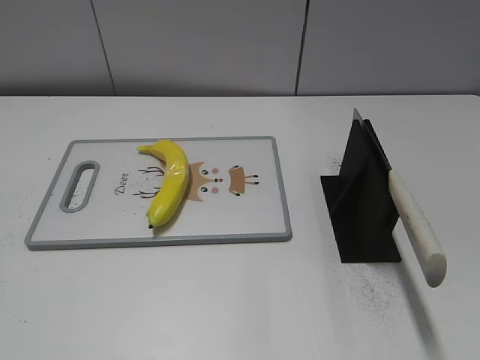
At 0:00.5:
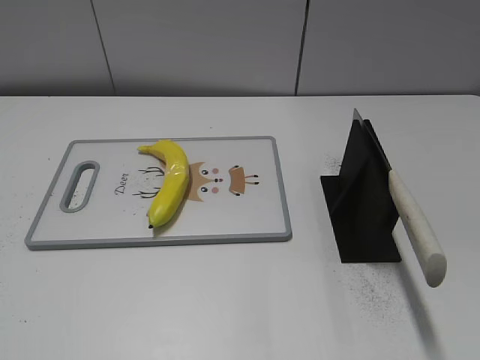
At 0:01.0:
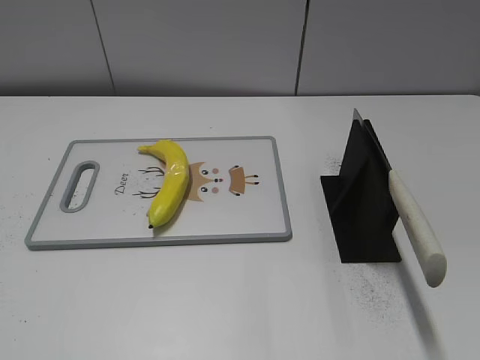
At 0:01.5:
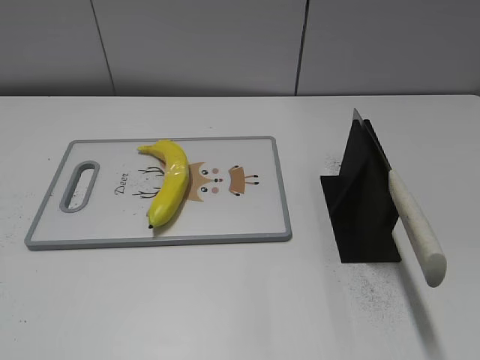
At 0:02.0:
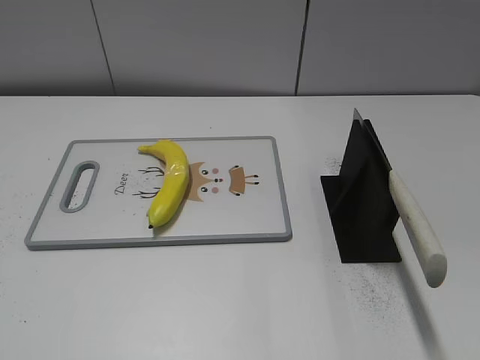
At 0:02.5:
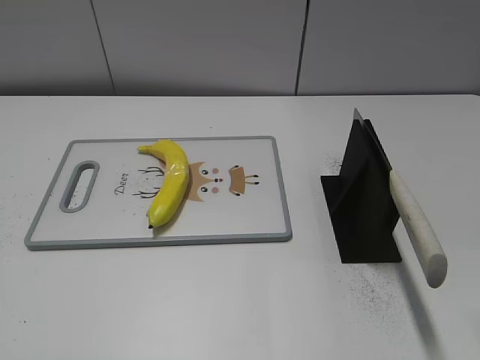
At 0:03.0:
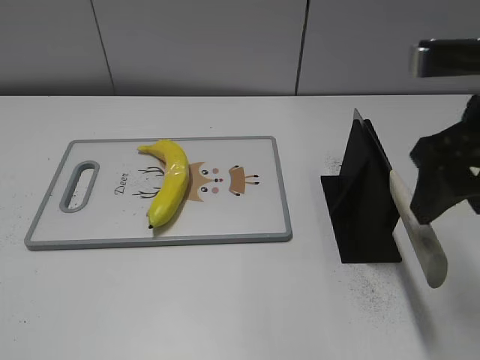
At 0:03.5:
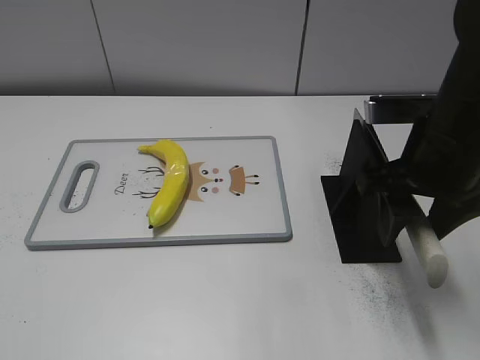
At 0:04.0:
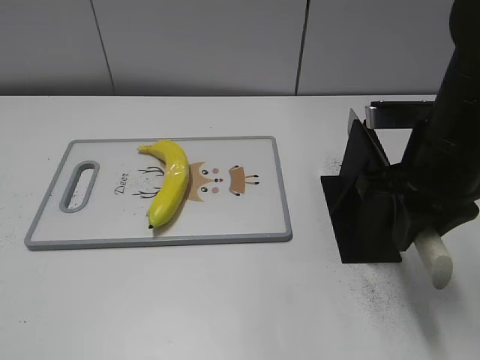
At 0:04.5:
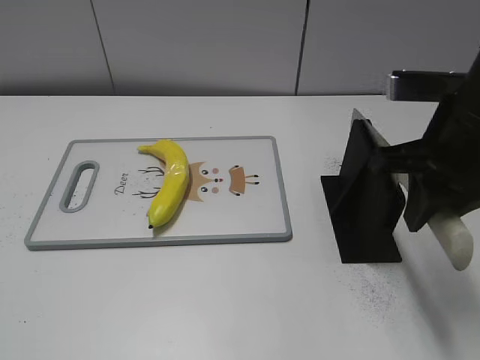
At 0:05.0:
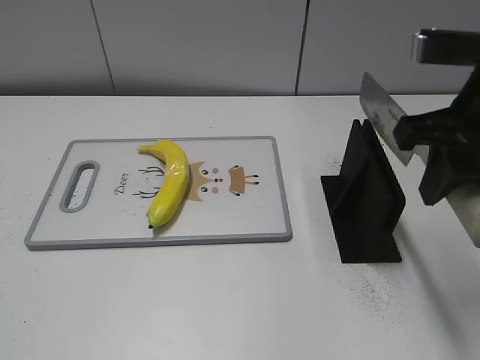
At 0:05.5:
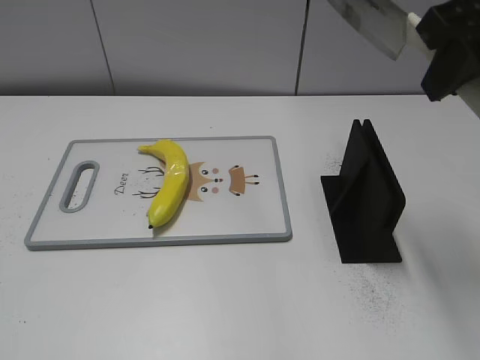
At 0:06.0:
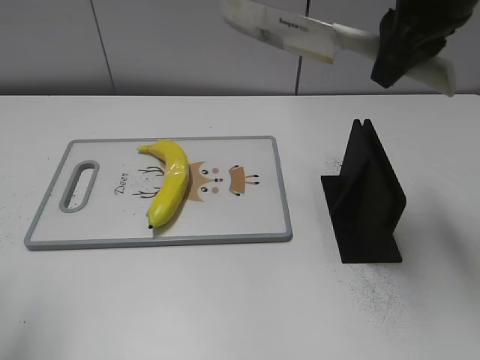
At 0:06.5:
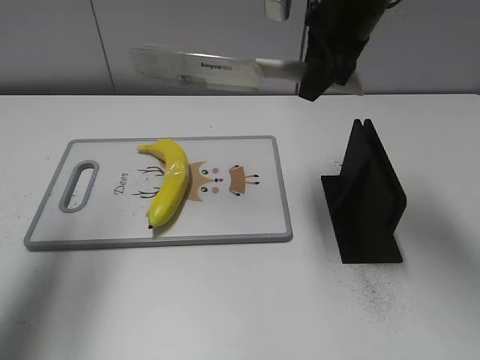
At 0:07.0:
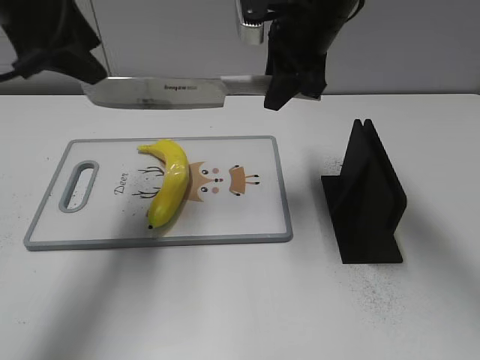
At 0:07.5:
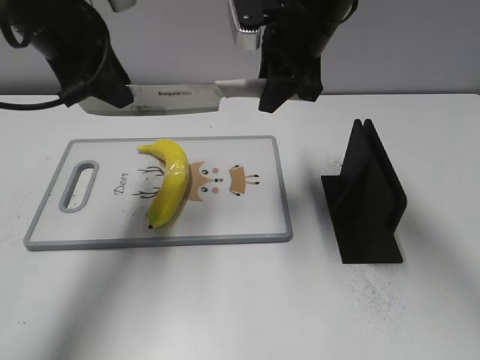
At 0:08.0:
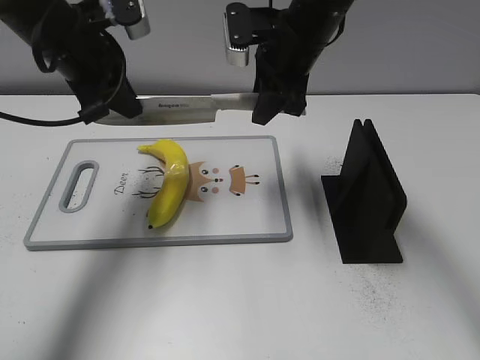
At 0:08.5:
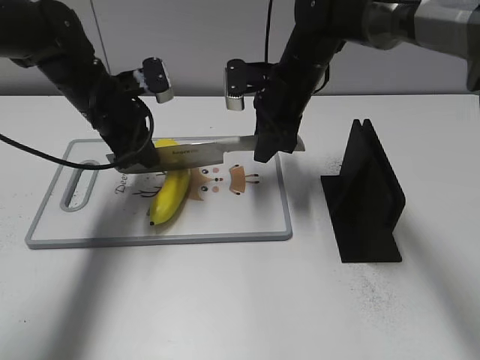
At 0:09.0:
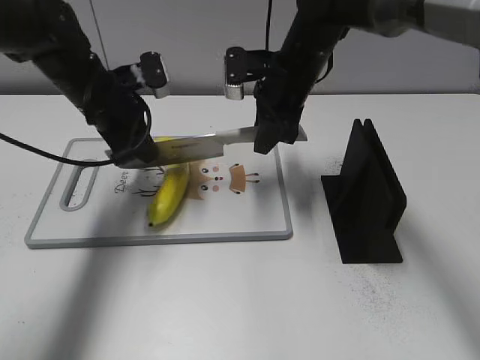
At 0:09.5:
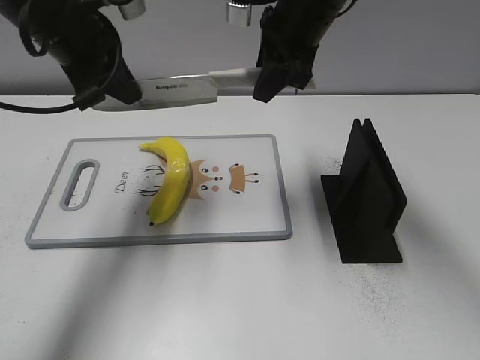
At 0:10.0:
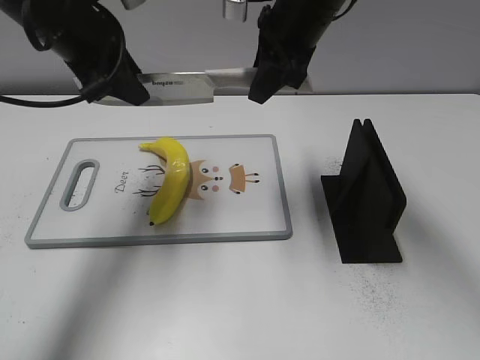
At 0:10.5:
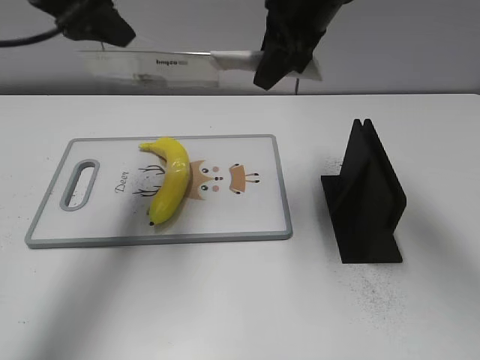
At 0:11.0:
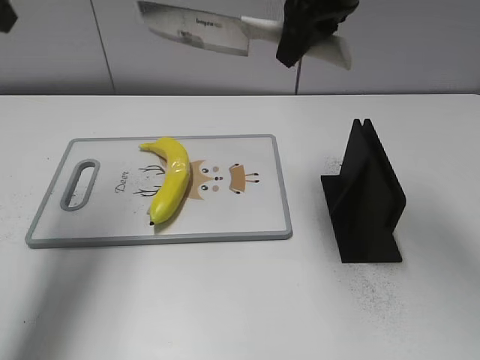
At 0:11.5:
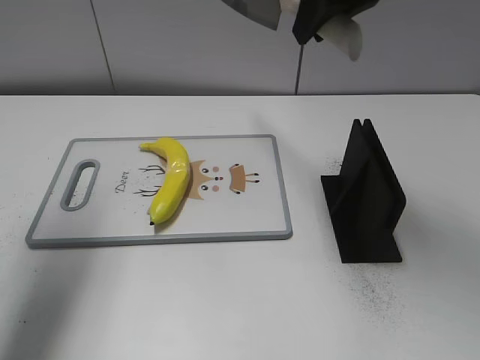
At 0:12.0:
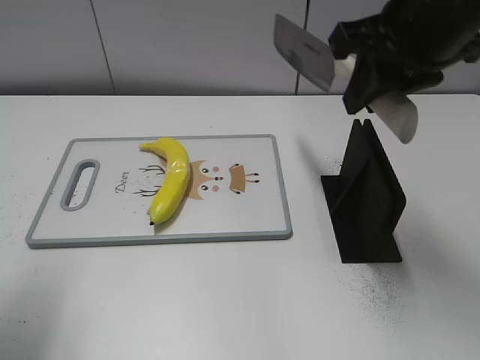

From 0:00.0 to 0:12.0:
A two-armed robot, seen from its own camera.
Task of the whole recording: cut plastic banana.
Step, from 0:00.0 to 0:04.5: Grab the knife handle with your right hand.
Step, from 0:05.0 to 0:09.5: Lift the knife with your right hand.
Step, from 0:10.0 to 0:10.5: Cut the banana with your right hand.
From 0:02.0 to 0:04.0: The right gripper moves forward, to the left and downward, approximately 25 cm, and closes.
From 0:04.0 to 0:06.0: The left gripper heads forward and upward, covering roughly 15 cm. The right gripper heads upward and forward, covering some 15 cm.
From 0:06.0 to 0:08.0: The right gripper heads downward, forward and to the left, covering approximately 15 cm, while the left gripper travels forward and to the right by about 25 cm, and closes its fingers.
From 0:08.0 to 0:10.0: The left gripper goes downward and returns, roughly 10 cm each way, and opens up.
From 0:10.0 to 0:12.0: The right gripper is displaced backward and to the right by about 15 cm. Meanwhile the left gripper moves backward and to the left, approximately 20 cm.

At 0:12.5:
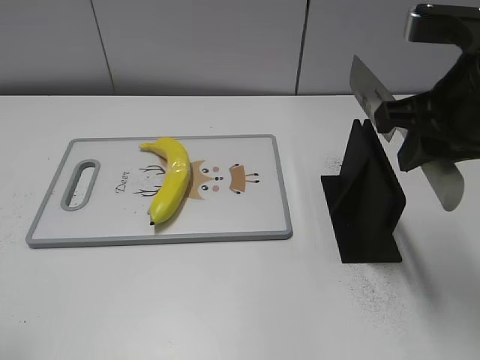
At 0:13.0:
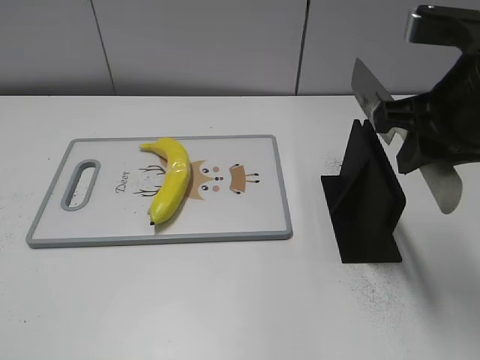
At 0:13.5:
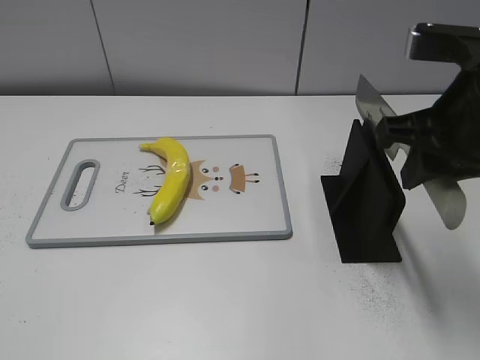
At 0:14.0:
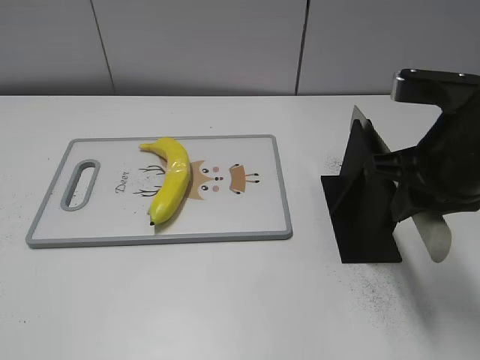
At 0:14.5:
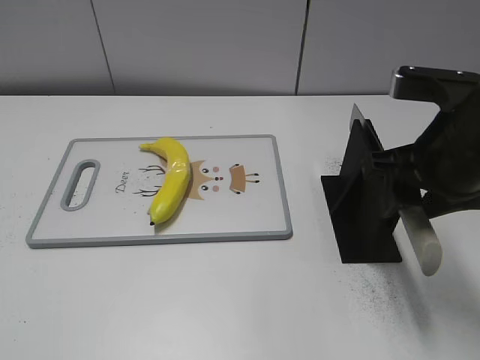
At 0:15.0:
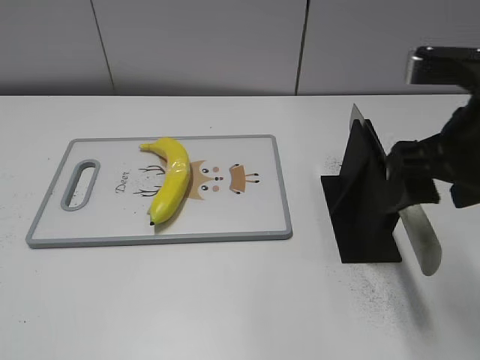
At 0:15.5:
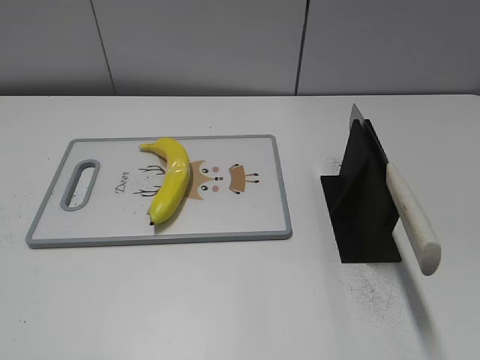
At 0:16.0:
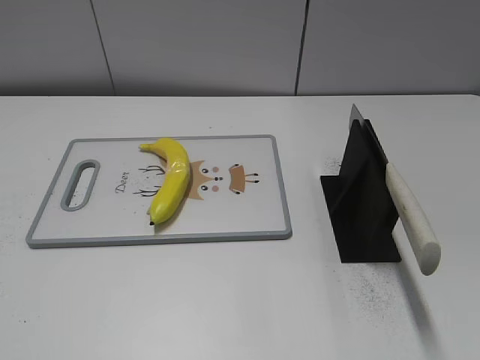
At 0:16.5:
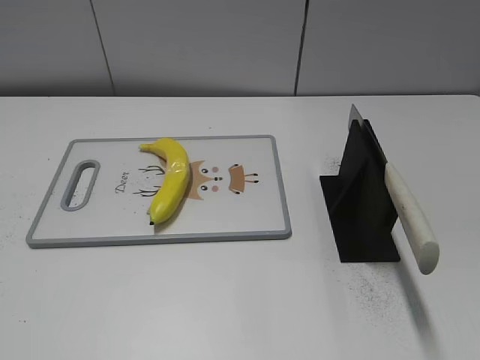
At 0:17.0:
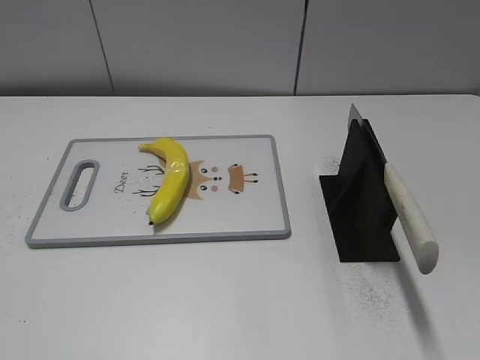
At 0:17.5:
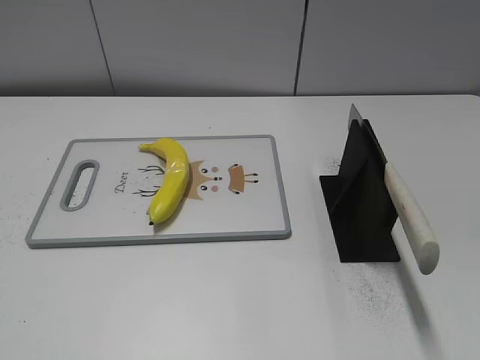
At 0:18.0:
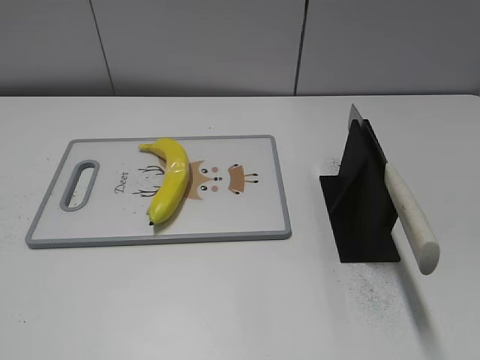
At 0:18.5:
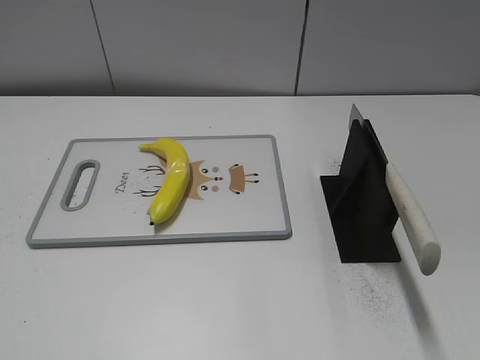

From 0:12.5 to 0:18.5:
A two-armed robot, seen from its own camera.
Task of the whole recording: cut plastic banana.
Step, from 0:12.5 to 0:18.0: Place the knife on the storage rack with your right hand.
From 0:12.5 to 0:14.5: The right gripper opens its fingers.
From 0:14.5 to 0:16.5: The right gripper is displaced backward and to the right by about 25 cm.
